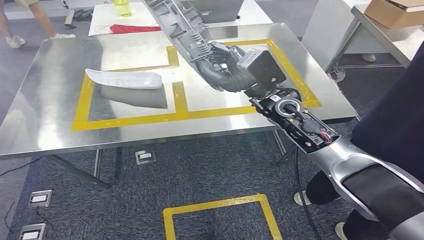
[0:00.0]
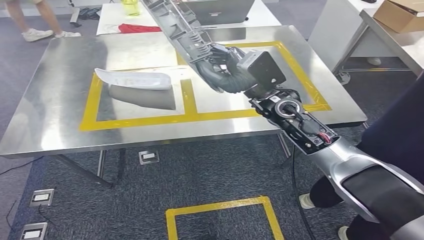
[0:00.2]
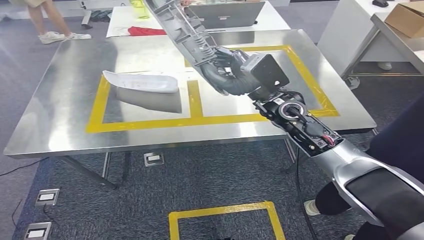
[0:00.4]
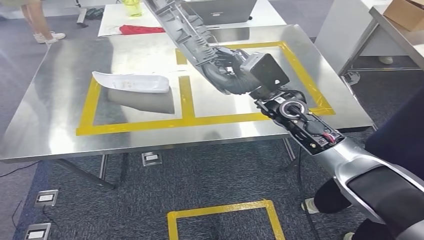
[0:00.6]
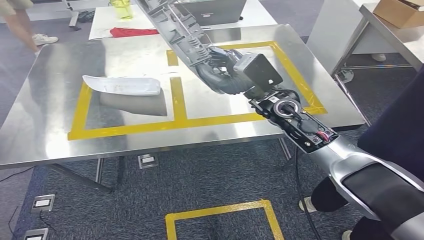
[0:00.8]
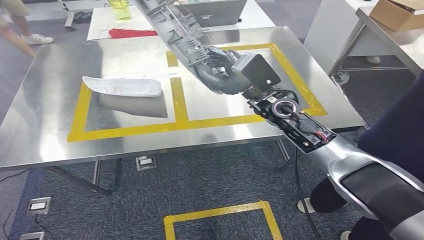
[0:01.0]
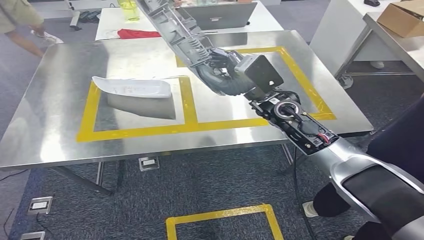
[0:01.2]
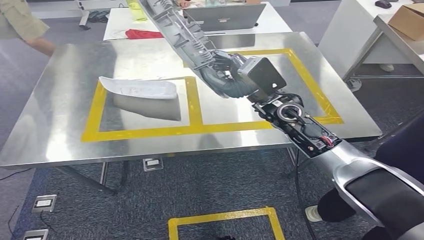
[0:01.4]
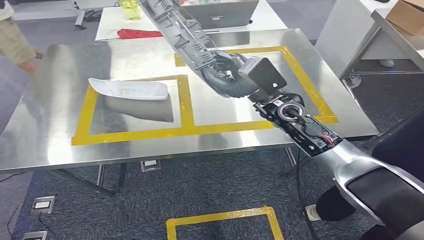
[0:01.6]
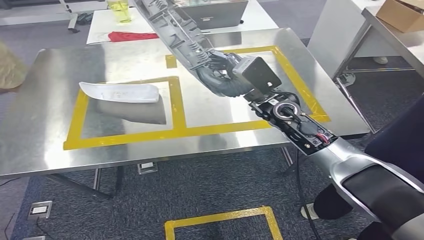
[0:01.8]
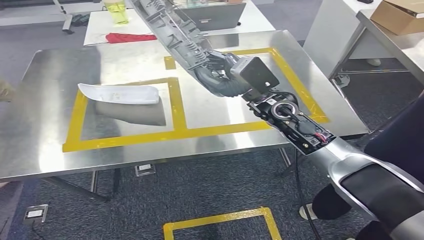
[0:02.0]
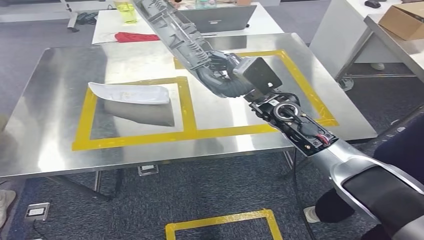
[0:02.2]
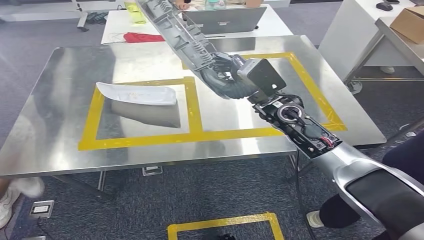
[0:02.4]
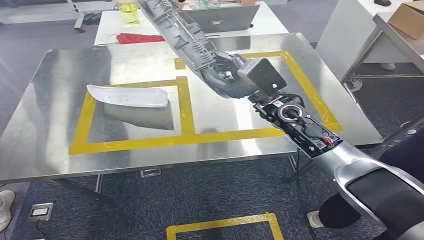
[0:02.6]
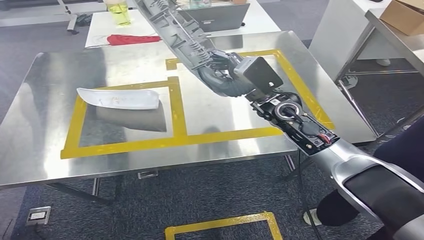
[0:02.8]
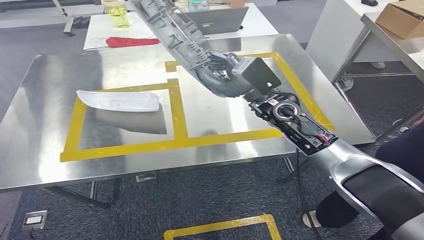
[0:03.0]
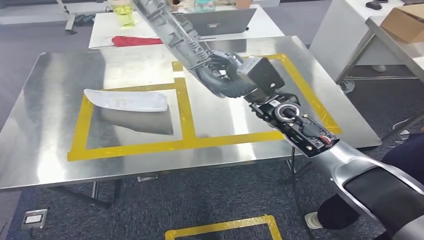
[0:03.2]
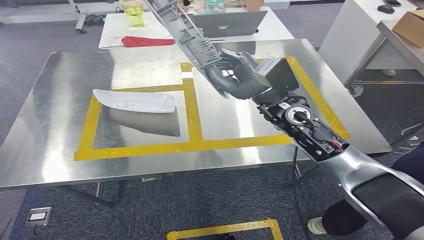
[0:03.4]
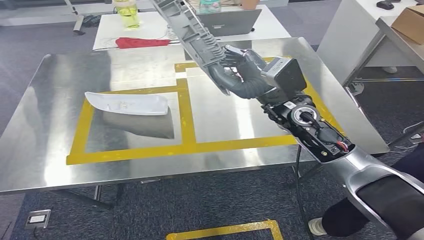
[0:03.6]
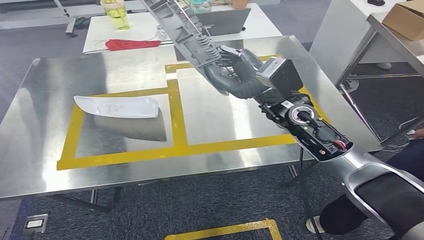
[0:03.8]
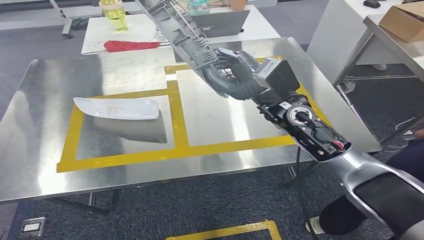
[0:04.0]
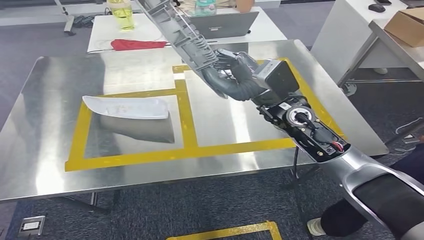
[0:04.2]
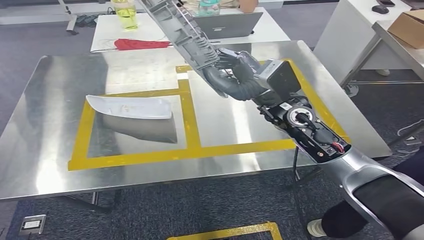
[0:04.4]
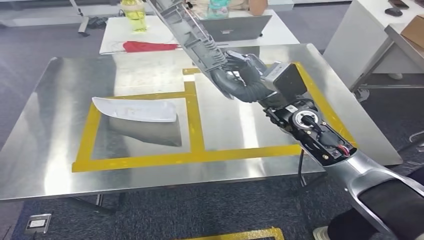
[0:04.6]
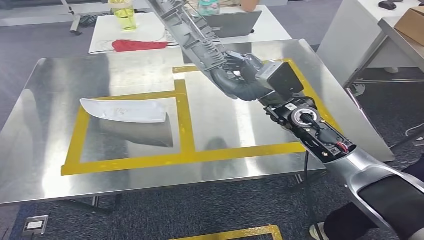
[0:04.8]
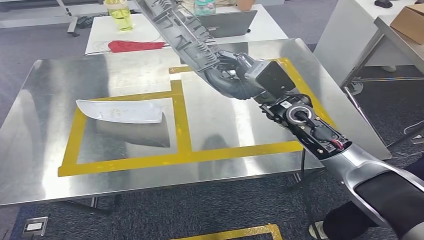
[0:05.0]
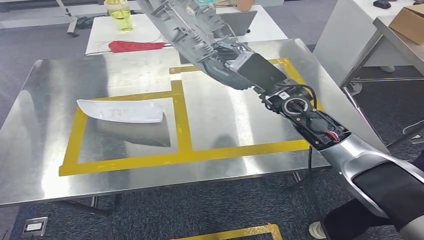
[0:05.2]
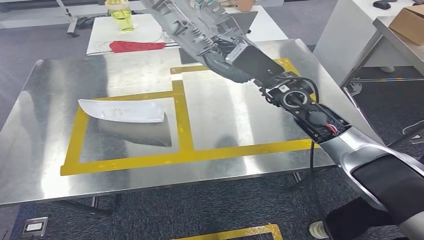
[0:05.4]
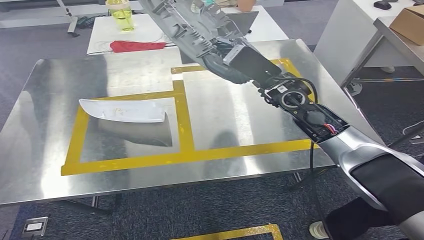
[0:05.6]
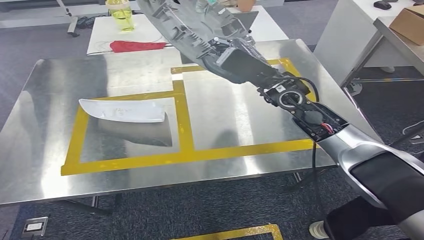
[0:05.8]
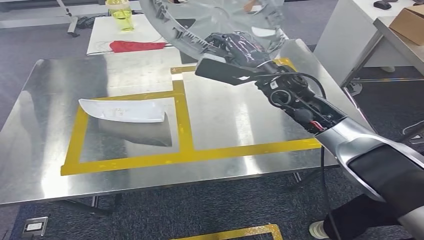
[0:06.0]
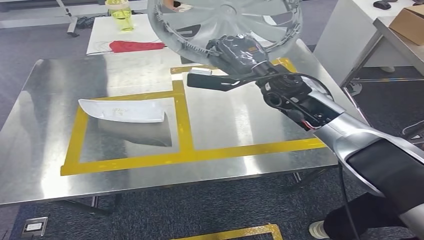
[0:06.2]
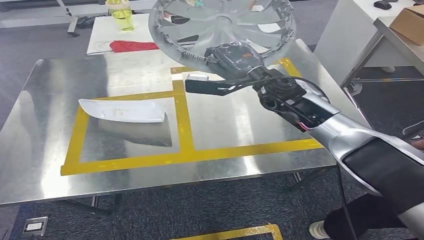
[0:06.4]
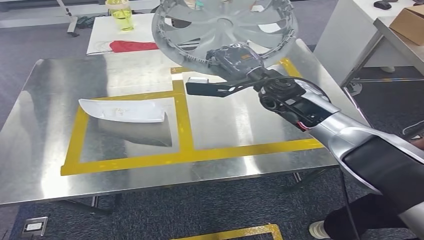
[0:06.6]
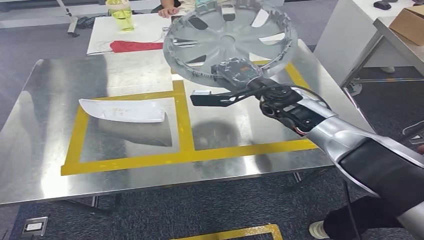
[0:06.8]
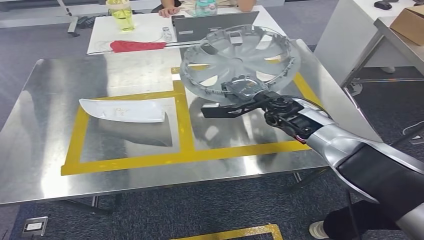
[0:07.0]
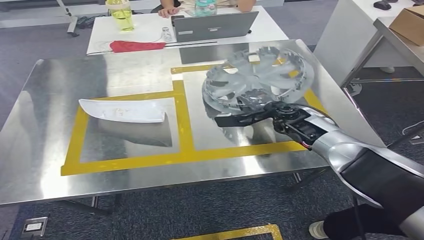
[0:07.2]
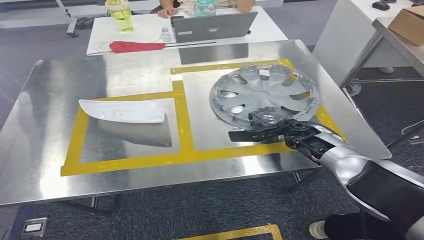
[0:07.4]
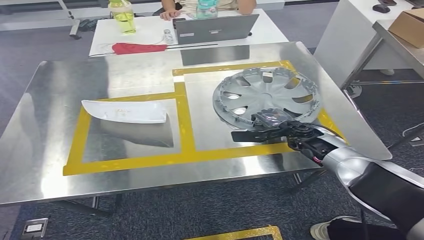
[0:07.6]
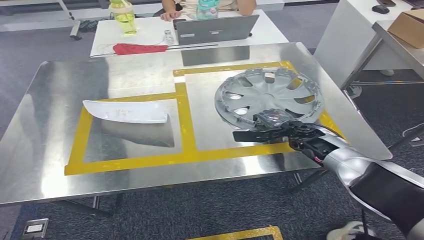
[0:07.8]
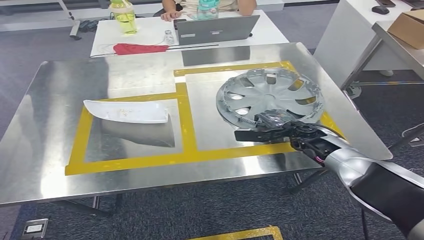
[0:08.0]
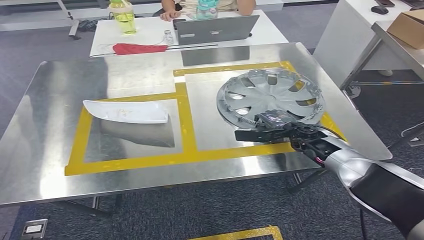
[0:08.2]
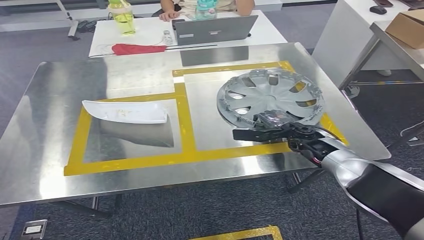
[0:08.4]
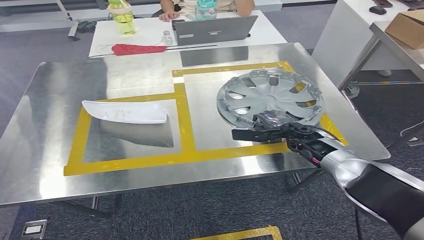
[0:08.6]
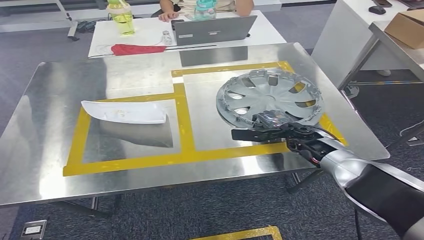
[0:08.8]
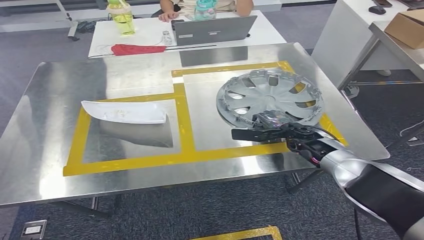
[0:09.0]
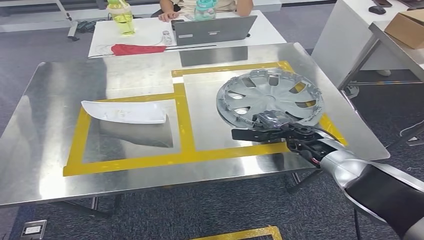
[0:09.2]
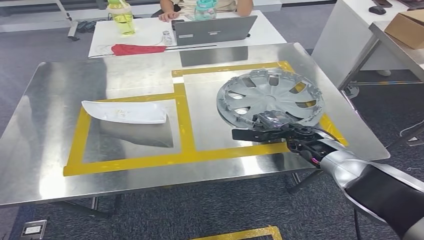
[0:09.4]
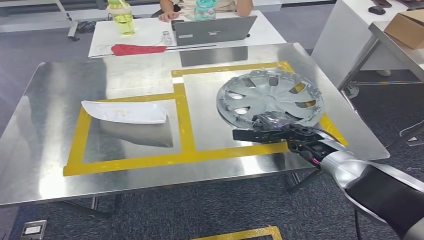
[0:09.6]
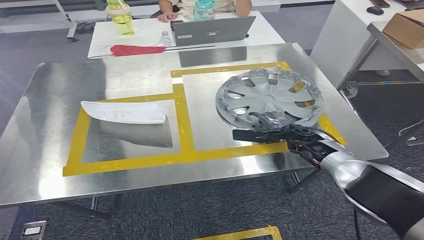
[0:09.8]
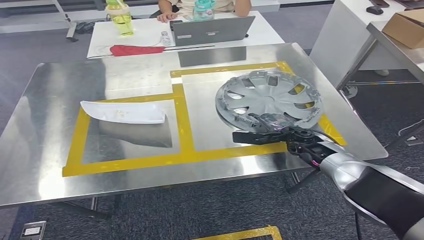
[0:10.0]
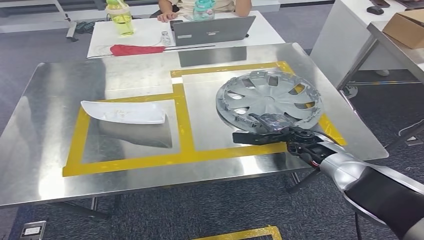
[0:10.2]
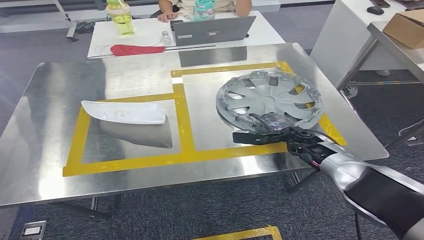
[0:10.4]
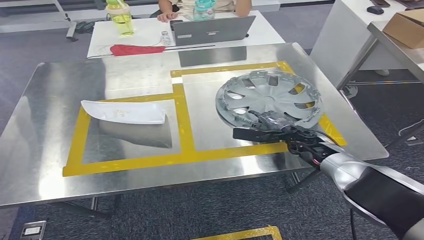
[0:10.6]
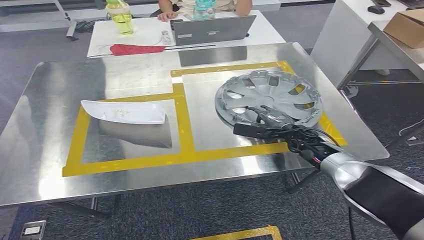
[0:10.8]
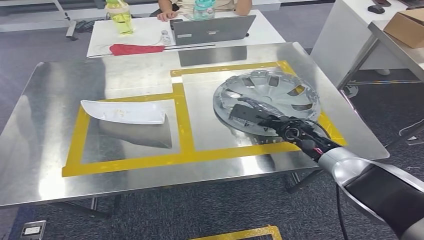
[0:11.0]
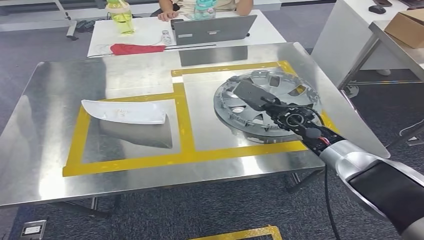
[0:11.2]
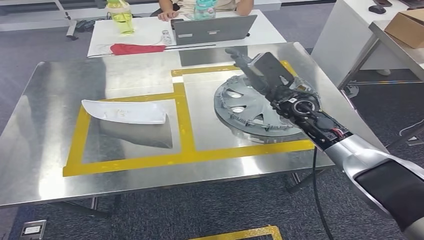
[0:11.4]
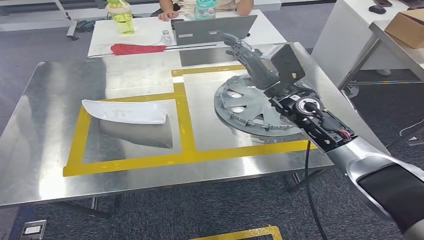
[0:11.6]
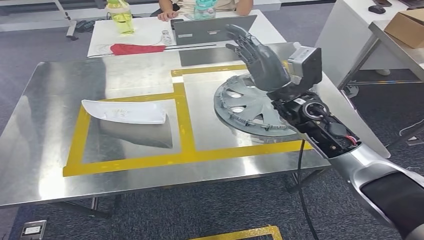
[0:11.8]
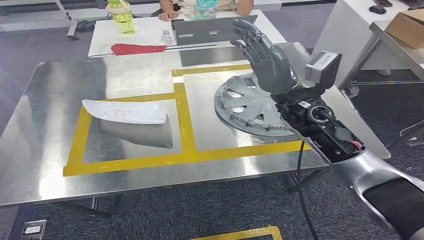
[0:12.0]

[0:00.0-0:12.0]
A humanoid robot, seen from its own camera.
7.6 to 10.4 s: The hands make only small movements.
10.4 to 12.0 s: The right hand goes some 20 cm upward.

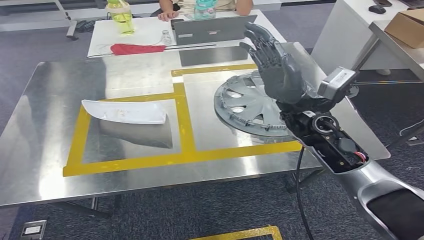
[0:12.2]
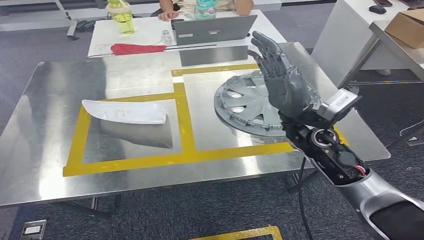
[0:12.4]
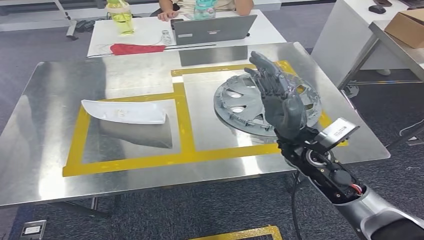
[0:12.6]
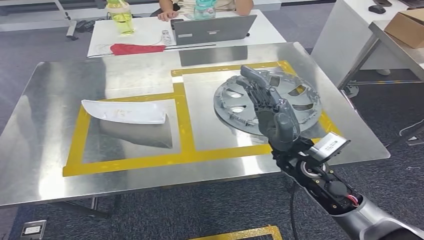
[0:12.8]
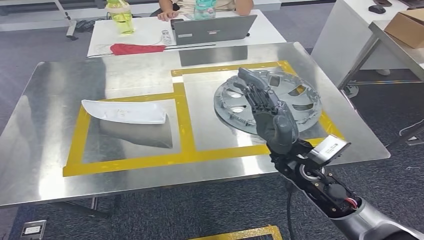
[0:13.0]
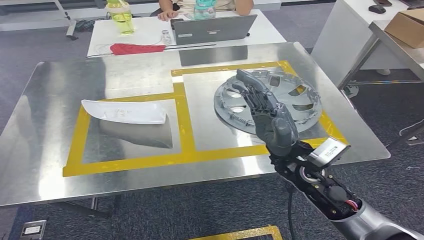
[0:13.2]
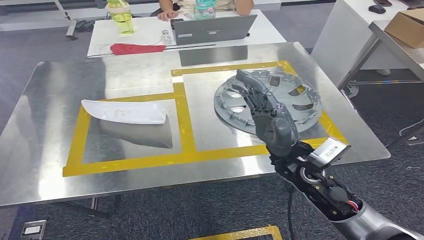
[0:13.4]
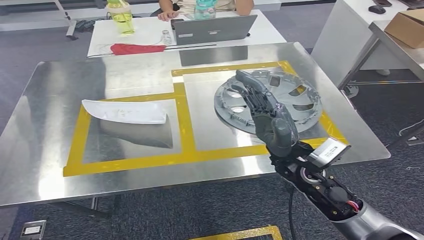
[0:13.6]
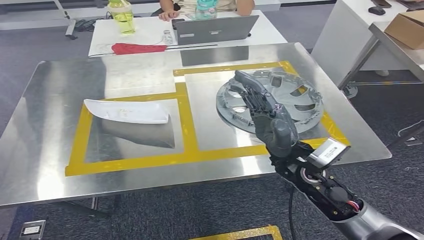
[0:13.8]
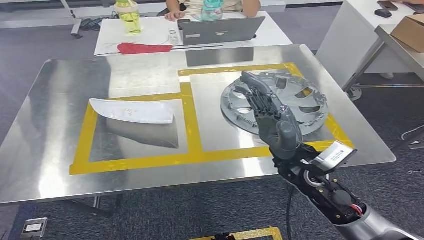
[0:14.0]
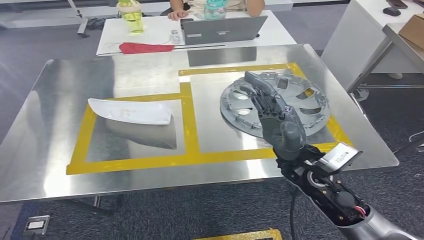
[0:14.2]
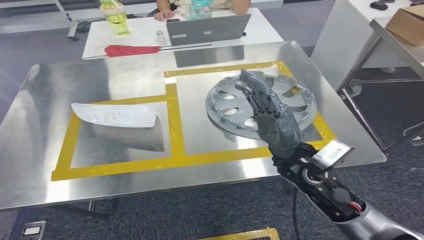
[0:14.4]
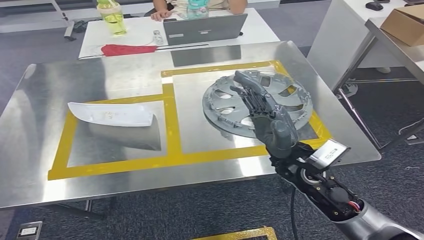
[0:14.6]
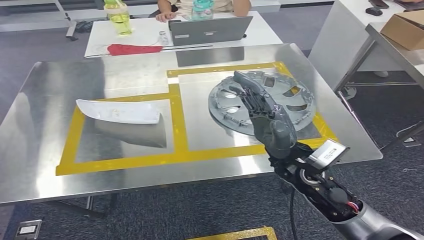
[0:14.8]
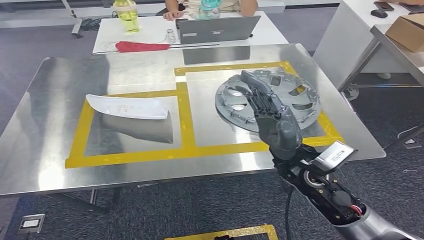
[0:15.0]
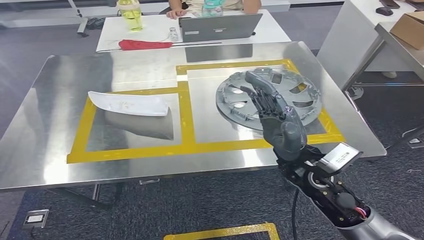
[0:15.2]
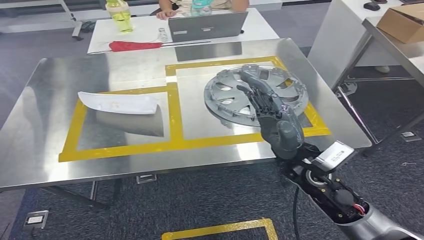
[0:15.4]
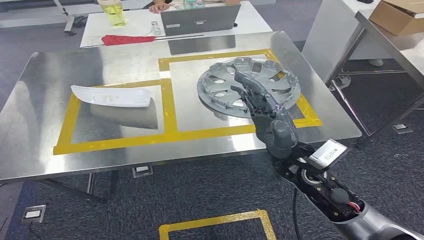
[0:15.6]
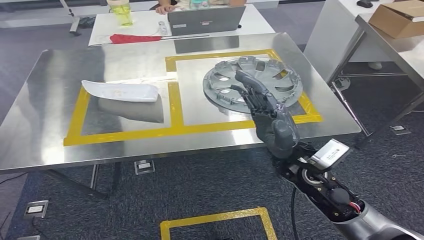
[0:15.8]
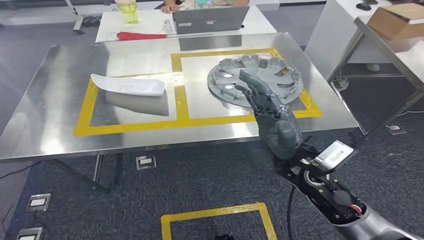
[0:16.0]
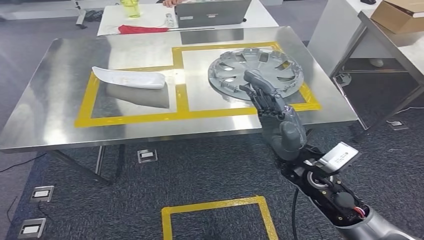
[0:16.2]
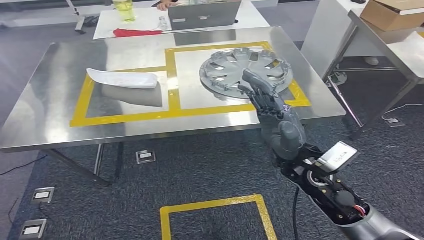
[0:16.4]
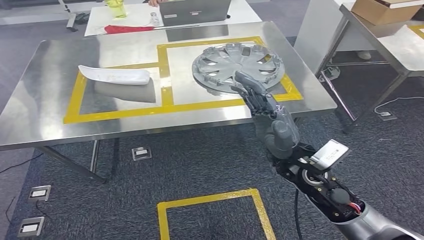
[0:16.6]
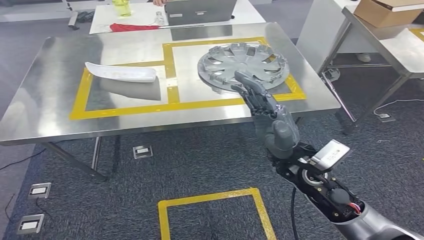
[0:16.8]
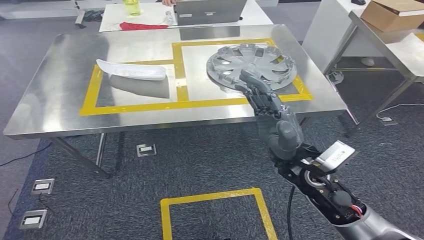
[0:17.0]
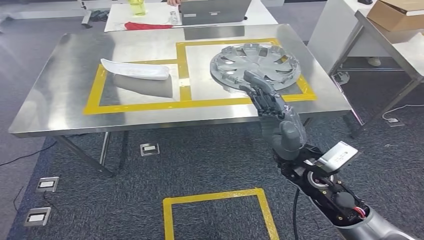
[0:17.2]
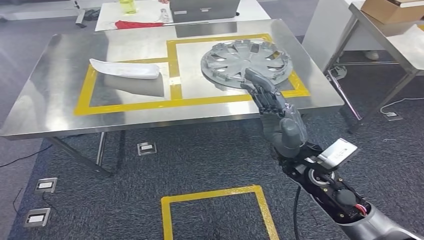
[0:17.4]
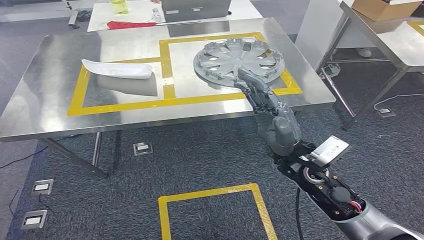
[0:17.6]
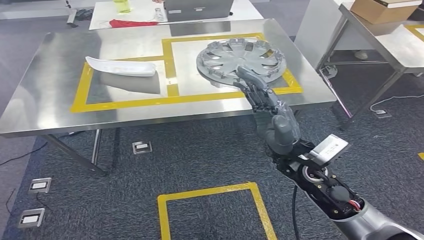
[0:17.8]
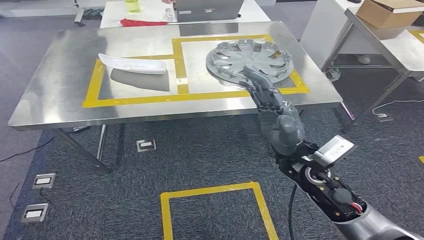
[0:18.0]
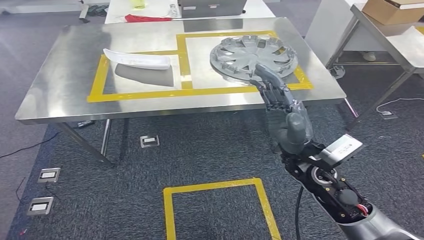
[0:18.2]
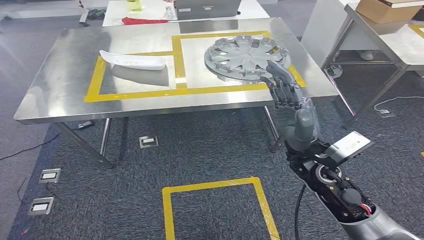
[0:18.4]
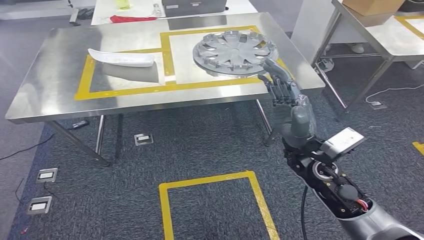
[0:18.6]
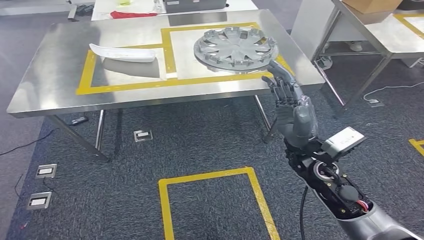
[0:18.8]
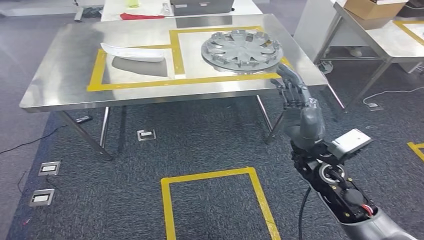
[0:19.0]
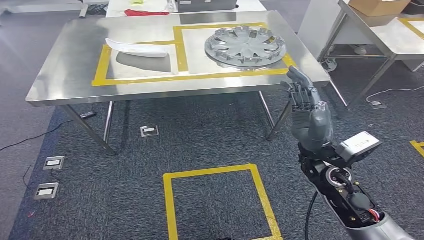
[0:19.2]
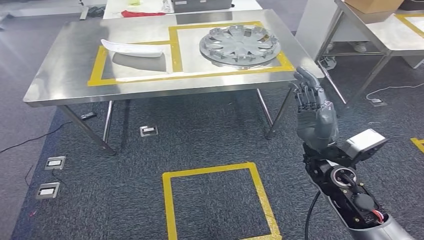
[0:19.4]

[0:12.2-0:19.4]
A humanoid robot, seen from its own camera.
12.2 to 13.6 s: The right hand goes roughly 10 cm backward.
13.6 to 15.0 s: Both hands stay about where they are.
